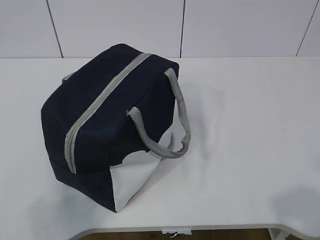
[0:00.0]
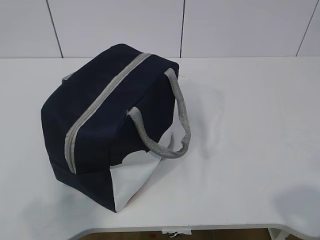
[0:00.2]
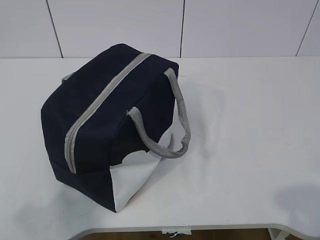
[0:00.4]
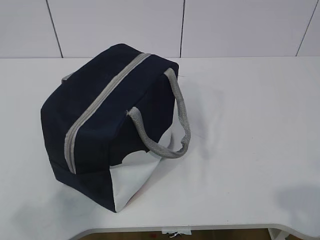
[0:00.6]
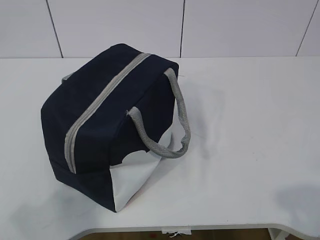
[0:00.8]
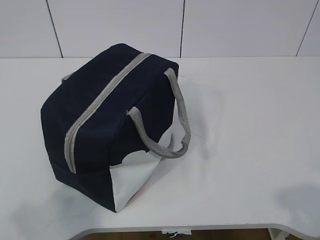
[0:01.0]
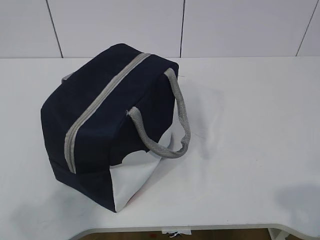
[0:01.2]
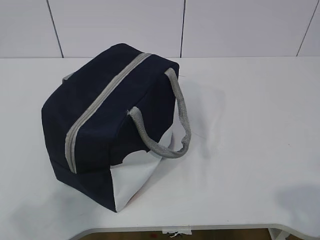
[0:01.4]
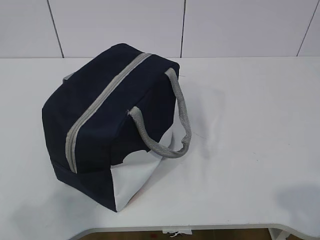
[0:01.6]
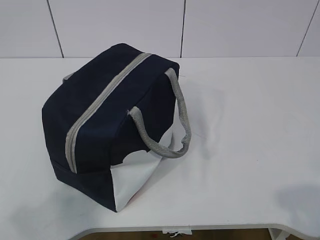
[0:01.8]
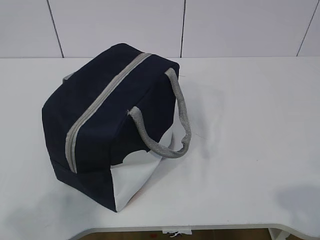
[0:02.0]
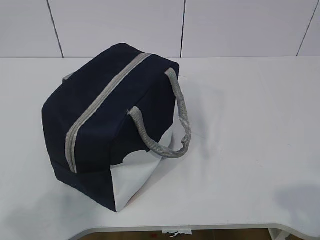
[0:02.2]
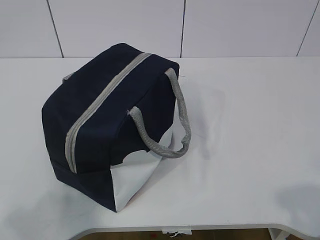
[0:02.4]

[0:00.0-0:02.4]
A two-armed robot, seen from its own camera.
0:01.2 to 0:02.4: The grippers move only a little.
